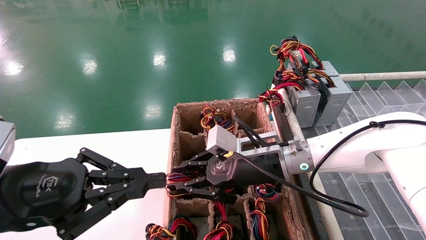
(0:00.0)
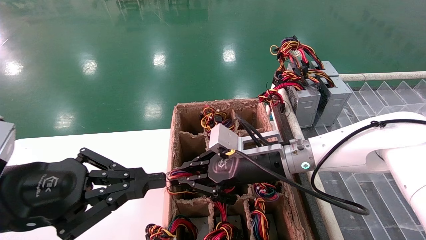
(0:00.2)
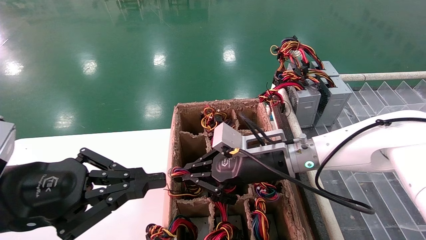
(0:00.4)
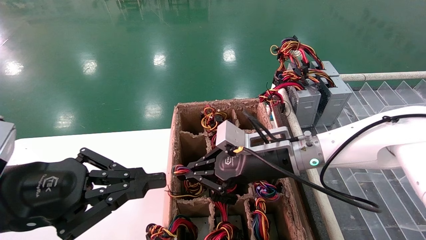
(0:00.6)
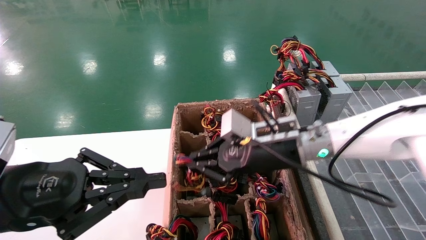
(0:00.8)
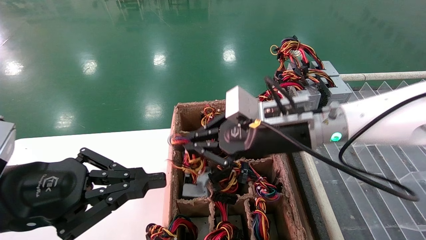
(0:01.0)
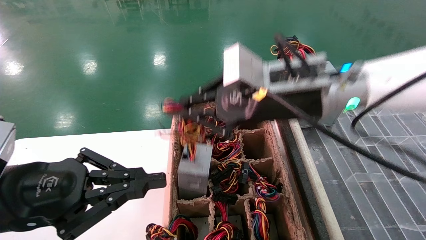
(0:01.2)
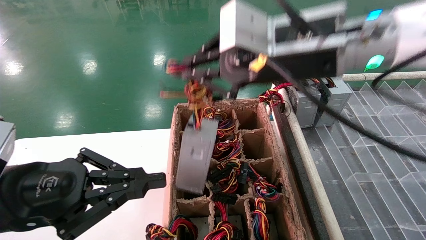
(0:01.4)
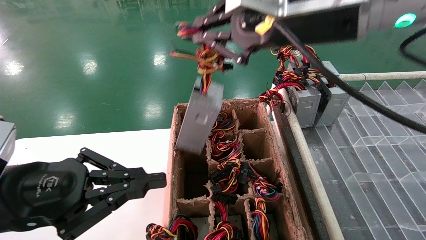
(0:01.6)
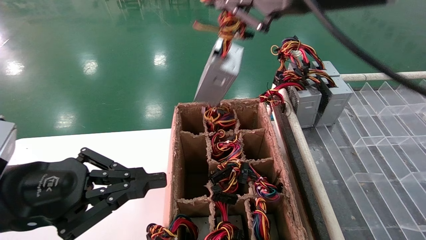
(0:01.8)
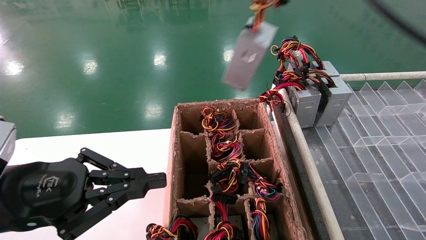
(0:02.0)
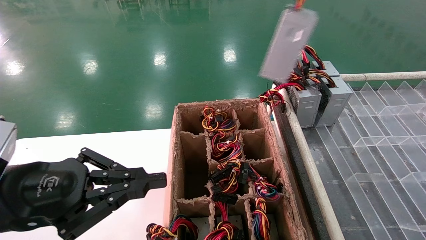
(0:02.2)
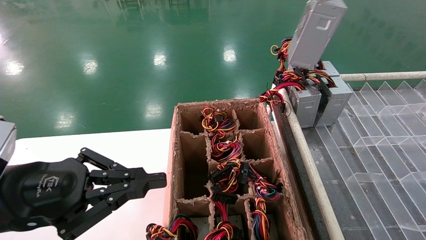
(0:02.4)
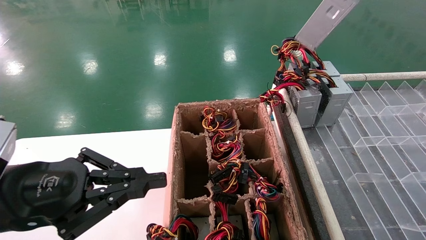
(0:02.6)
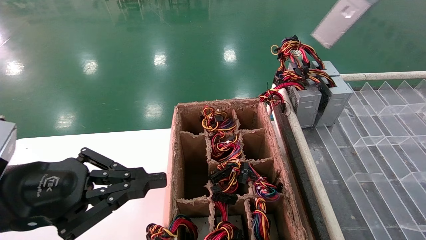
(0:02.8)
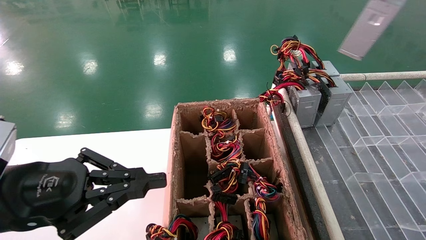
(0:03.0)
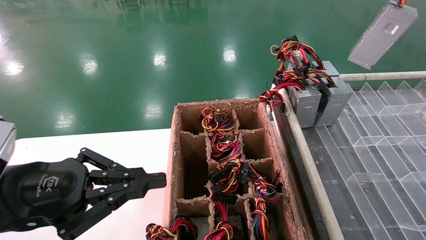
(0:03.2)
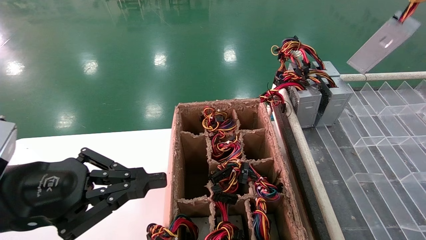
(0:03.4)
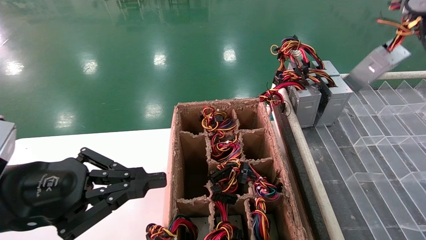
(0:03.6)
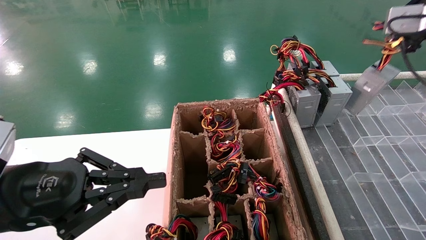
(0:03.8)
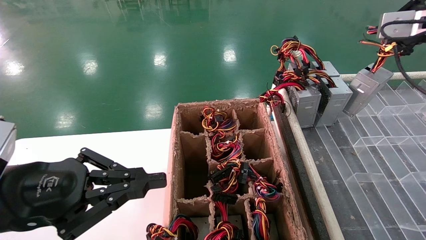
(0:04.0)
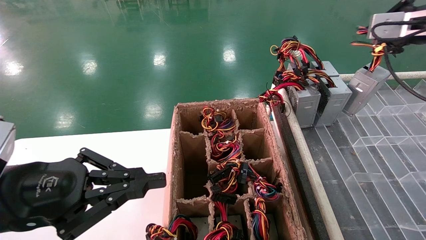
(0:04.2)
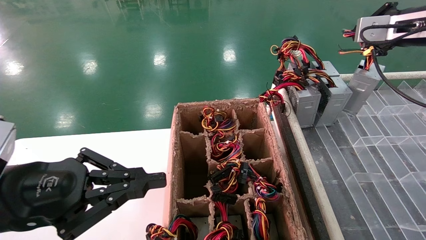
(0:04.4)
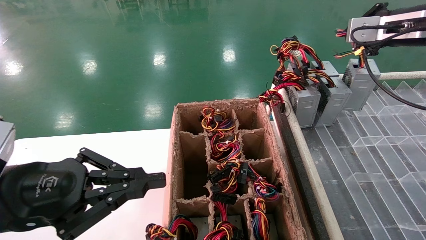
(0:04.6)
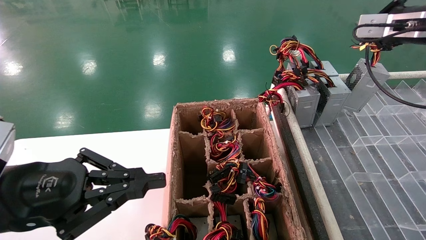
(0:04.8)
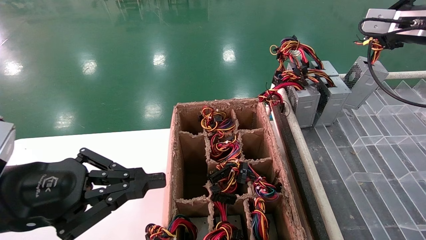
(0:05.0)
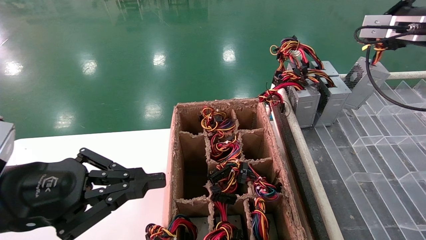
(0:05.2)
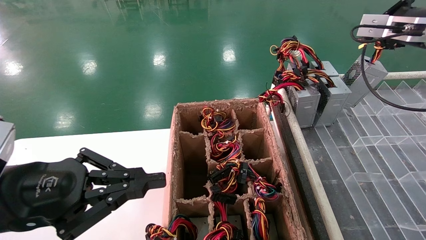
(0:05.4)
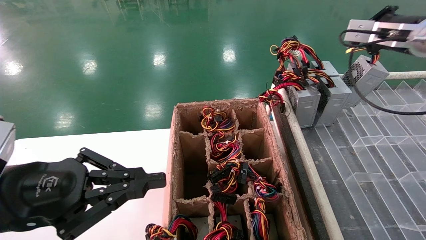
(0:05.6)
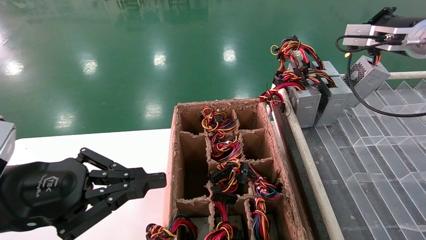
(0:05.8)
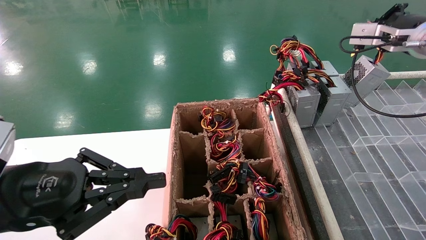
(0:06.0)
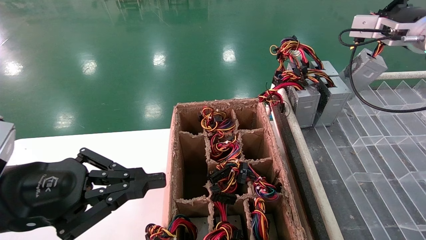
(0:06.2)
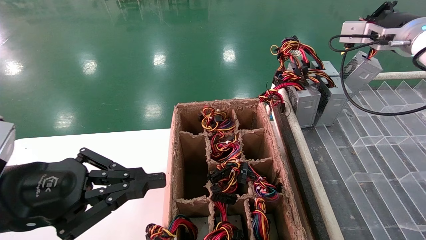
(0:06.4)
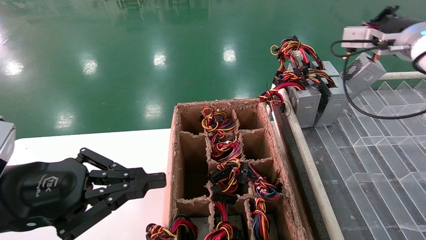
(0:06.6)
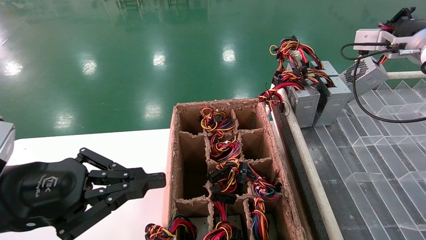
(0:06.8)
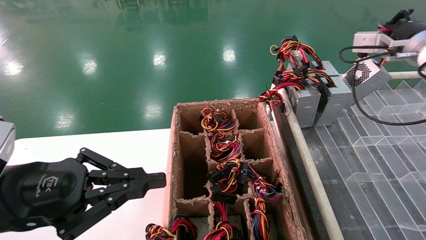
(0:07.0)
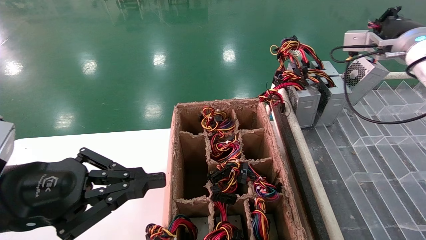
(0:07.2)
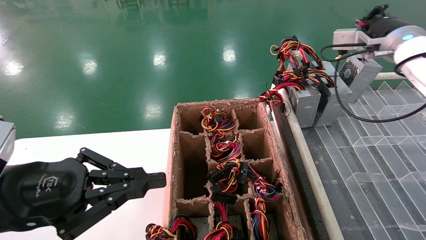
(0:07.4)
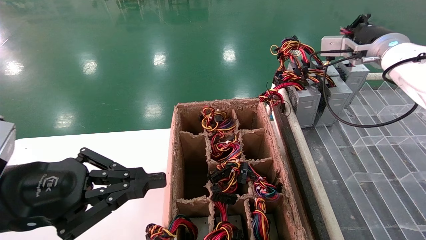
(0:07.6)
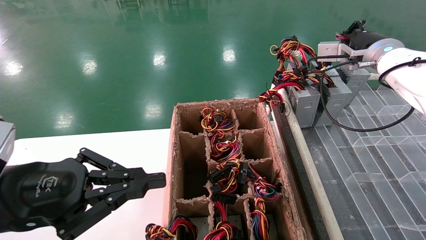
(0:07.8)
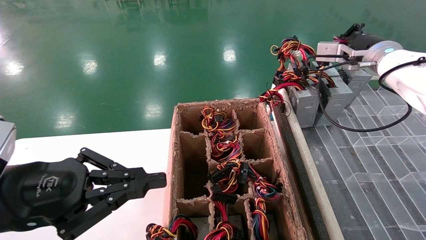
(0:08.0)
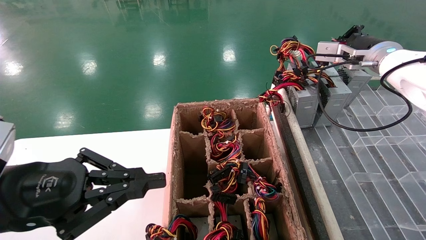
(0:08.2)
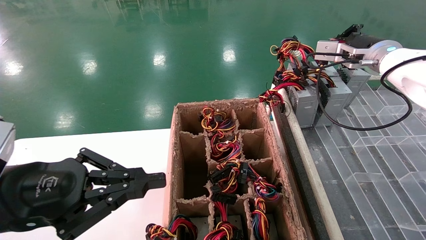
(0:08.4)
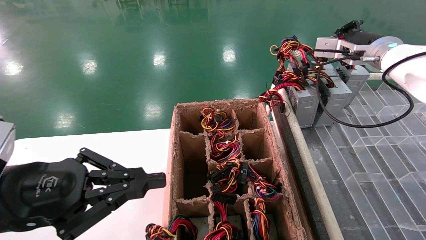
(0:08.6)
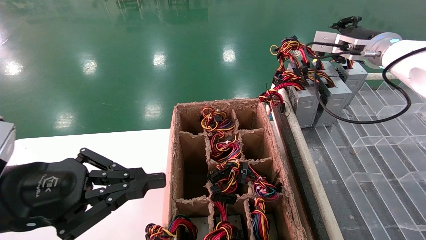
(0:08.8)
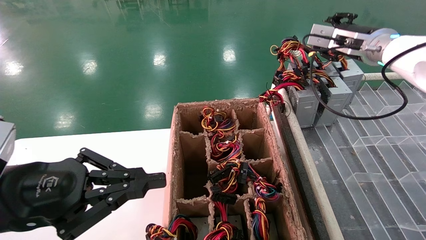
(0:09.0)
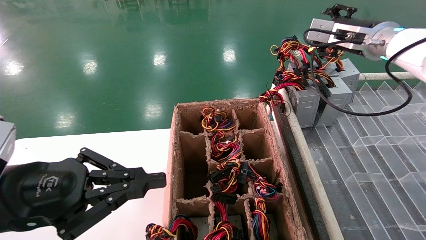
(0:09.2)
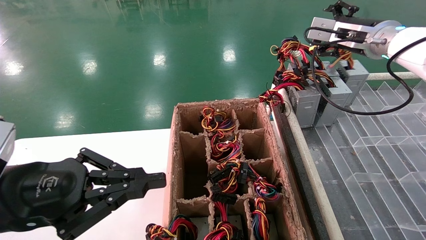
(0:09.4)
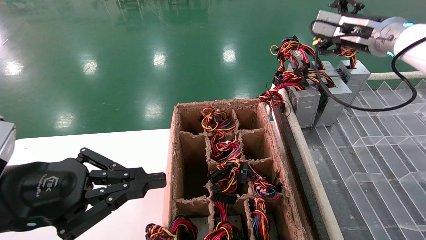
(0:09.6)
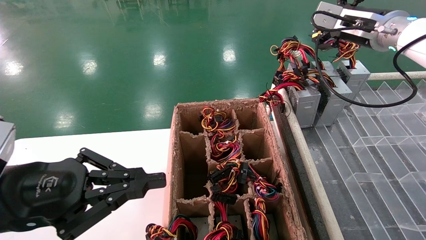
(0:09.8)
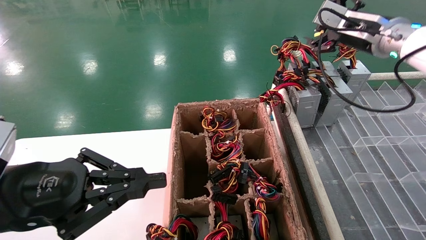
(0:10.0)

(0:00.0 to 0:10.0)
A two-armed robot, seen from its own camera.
Step, 0:00.4 - 0:09.8: Place the main unit power supply in the designated area.
0:00.0 - 0:01.4: The right gripper travels upward by some 20 cm, and closes up.
0:01.4 - 0:02.8: The right gripper moves to the right and upward, some 25 cm.
0:02.8 - 0:04.2: The right gripper travels downward, forward and to the right by roughly 15 cm.
0:04.2 - 0:05.8: The right gripper goes about 5 cm forward.
0:05.8 - 0:07.2: There are only small adjustments of the grippers.
0:07.2 - 0:08.6: The grippers stay close to where they were, moving slightly.
0:08.6 - 0:10.0: The right gripper opens up.

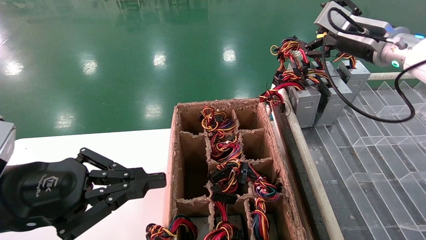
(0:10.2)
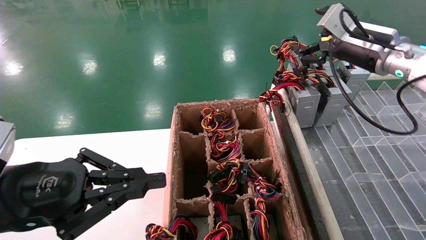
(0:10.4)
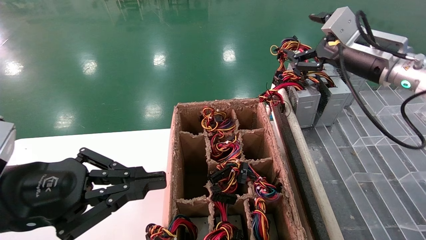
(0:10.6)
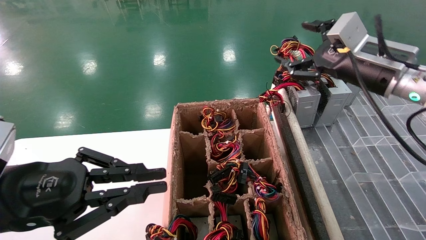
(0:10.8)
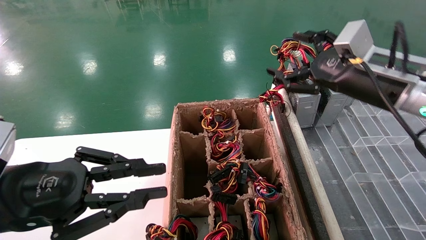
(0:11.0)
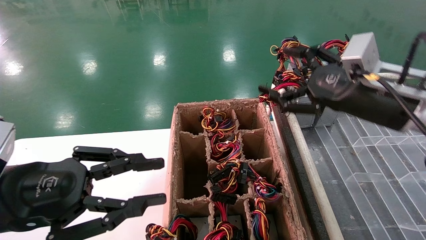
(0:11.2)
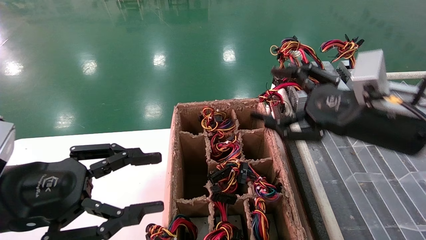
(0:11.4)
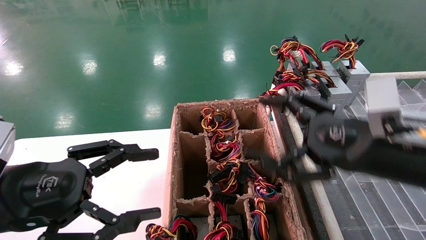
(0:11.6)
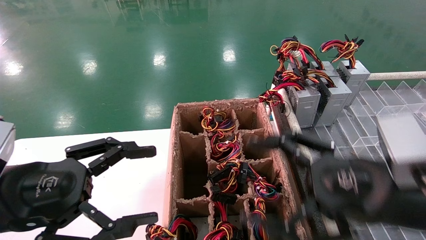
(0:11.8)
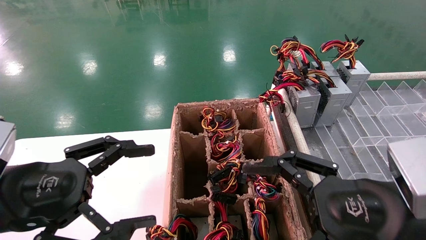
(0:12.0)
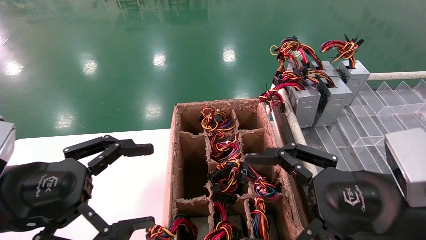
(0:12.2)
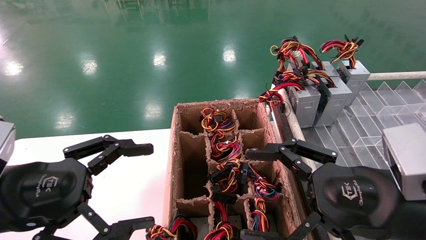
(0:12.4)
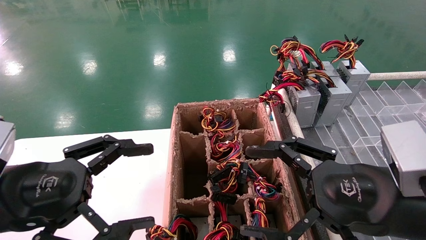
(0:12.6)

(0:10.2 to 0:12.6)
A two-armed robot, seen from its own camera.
0:10.2 - 0:11.4: The left gripper opens up, while the right gripper shifts roughly 20 cm backward and downward.
0:11.4 - 0:12.6: The right gripper is displaced backward by about 10 cm. The left gripper opens up.
